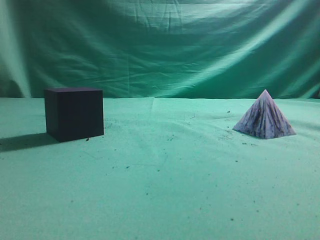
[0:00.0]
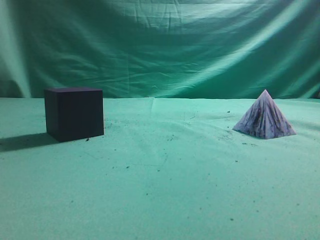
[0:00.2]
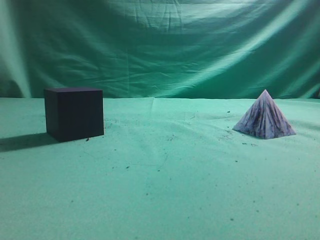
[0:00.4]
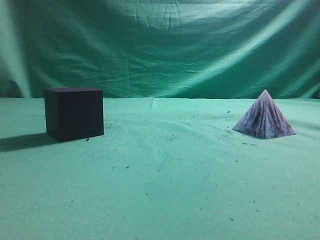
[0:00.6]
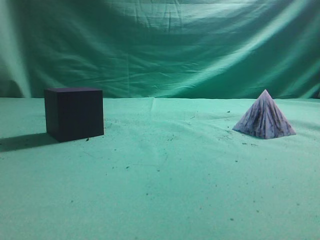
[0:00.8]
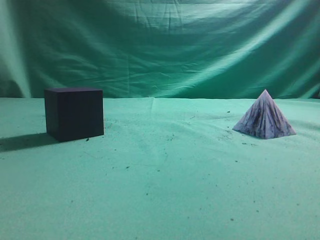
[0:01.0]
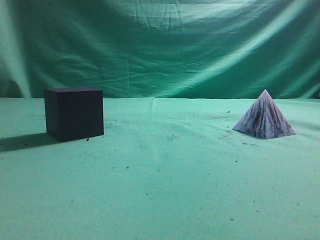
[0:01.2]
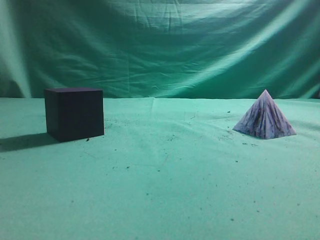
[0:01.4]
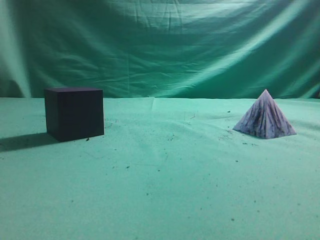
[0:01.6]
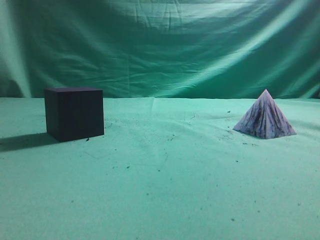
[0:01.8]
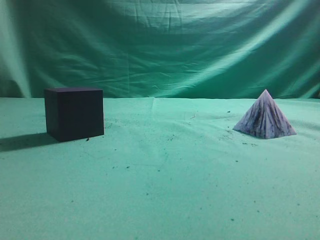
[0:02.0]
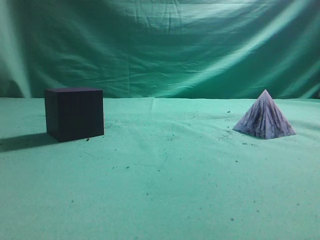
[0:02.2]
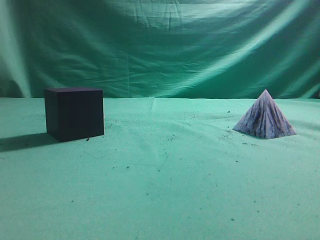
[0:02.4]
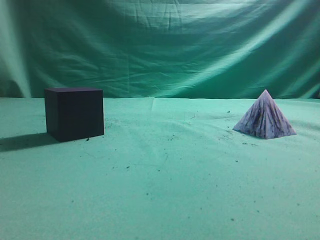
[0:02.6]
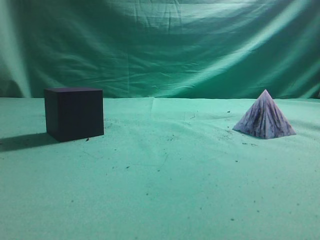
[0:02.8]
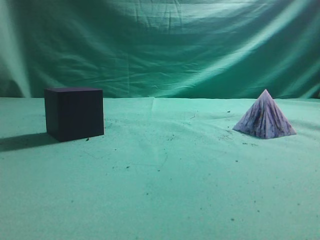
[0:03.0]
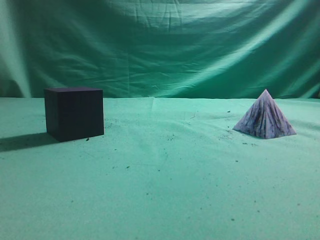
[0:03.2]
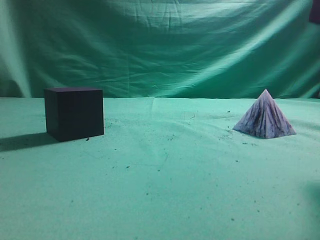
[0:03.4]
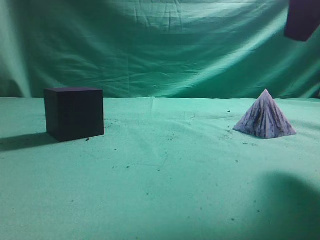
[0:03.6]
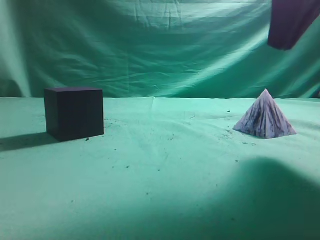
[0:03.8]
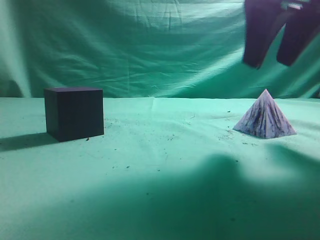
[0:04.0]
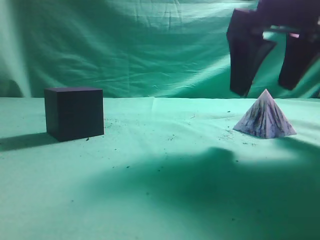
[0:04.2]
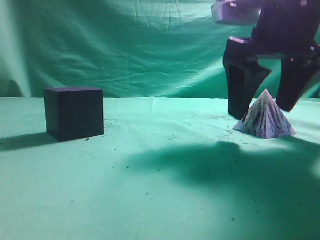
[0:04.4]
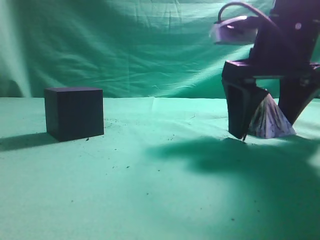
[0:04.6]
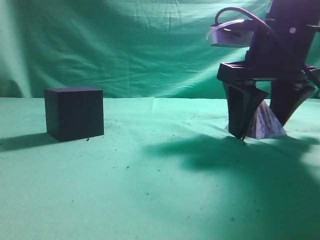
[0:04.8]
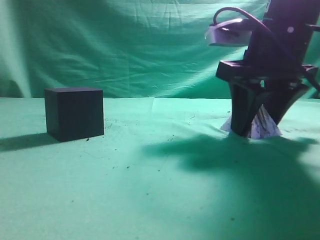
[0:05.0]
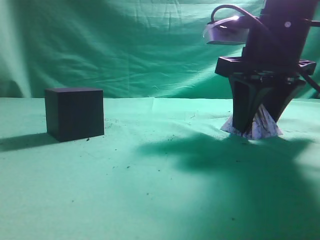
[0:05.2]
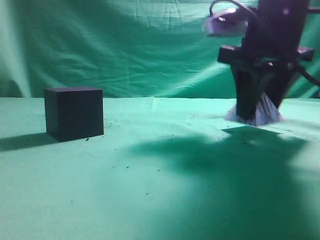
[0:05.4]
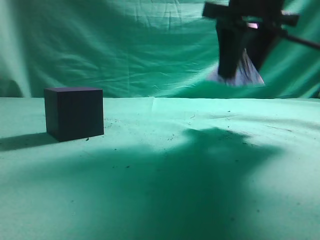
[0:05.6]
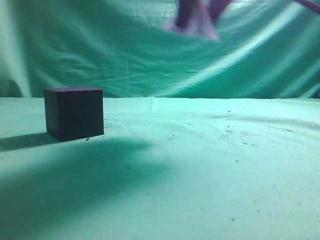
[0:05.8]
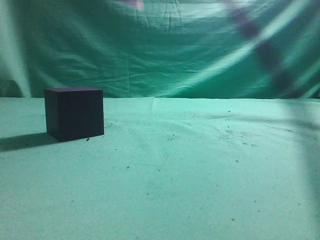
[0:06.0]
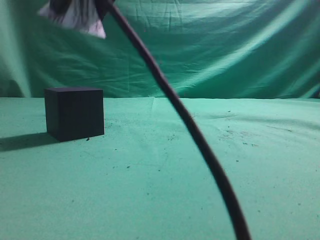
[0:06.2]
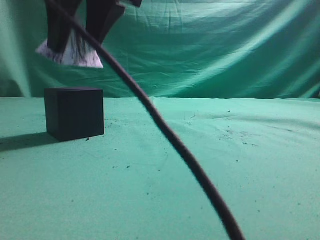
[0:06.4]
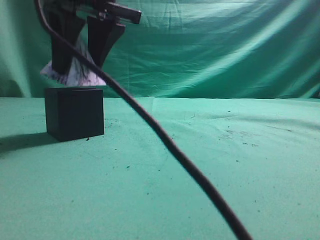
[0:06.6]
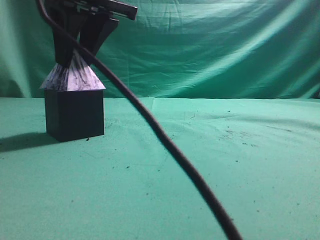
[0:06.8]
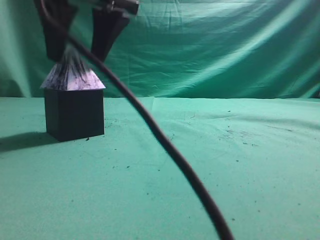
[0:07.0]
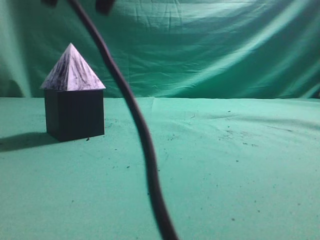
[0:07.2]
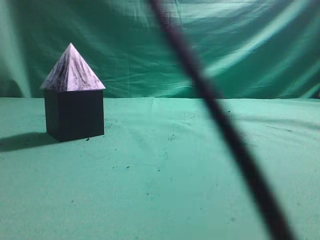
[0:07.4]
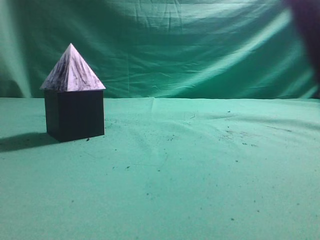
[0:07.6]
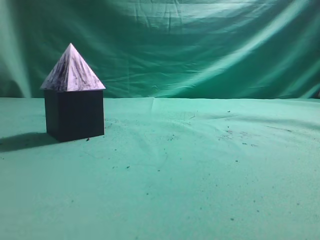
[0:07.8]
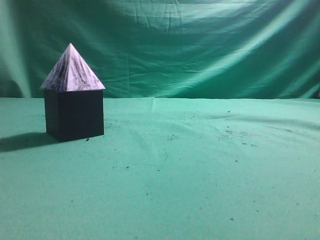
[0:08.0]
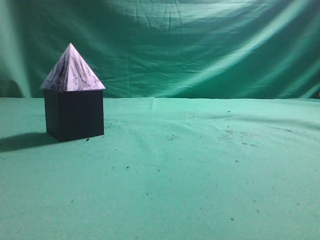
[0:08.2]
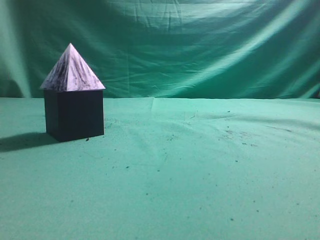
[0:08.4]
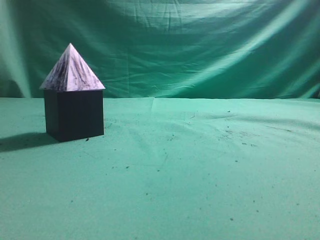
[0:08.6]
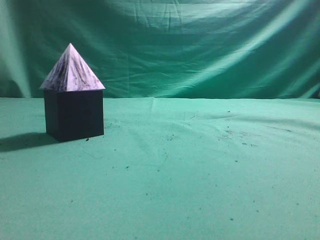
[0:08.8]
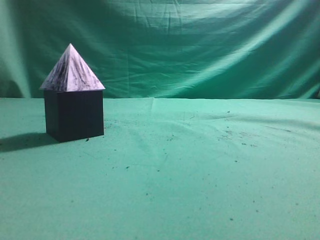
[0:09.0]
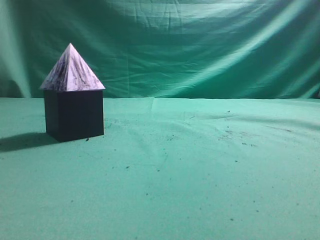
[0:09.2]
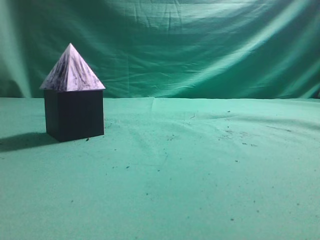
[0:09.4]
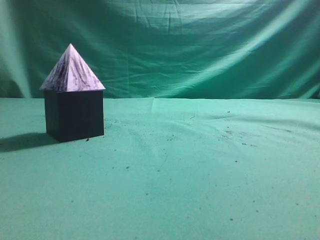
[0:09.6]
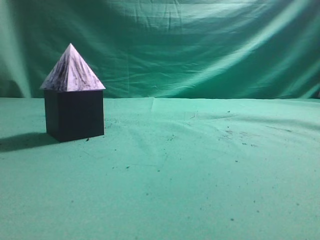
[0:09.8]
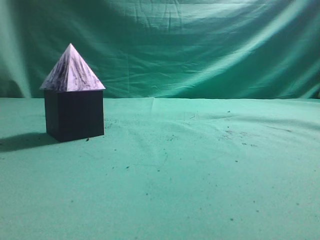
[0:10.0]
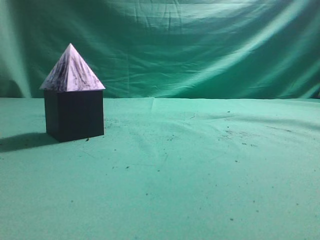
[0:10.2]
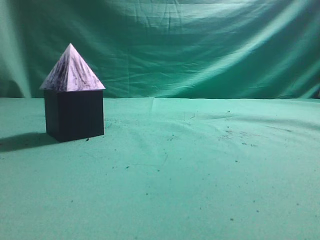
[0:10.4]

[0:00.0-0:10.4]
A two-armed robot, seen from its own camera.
Task of the whole recording: pick up the square pyramid from the table and place it on the cube block.
Step, 0:00.0 to 0:05.4: Grasp the triangular block.
Step, 0:05.6 to 0:07.0: Place the block onto the cube-shaped block.
0:03.0 to 0:04.4: The right gripper shifts some 20 cm forward, downward and to the left, and opens.
0:04.4 to 0:06.0: The right gripper goes some 20 cm upward and to the left, and closes.
0:06.0 to 0:07.4: The right gripper travels upward and to the left by roughly 10 cm, and opens and closes again.
0:07.4 to 0:09.0: The right gripper moves to the right and backward, some 35 cm, and closes.
